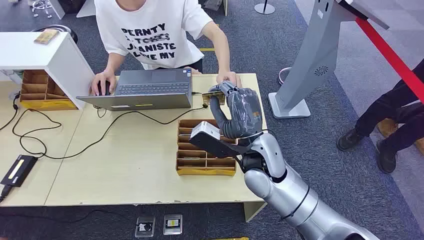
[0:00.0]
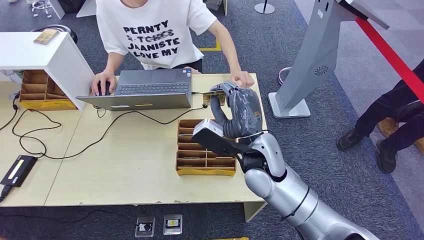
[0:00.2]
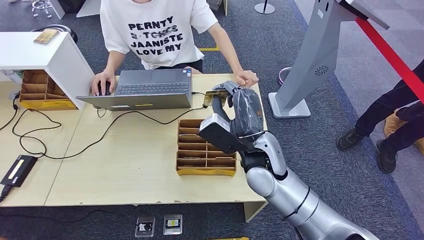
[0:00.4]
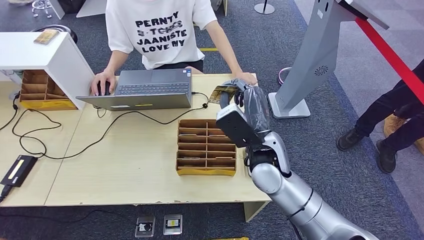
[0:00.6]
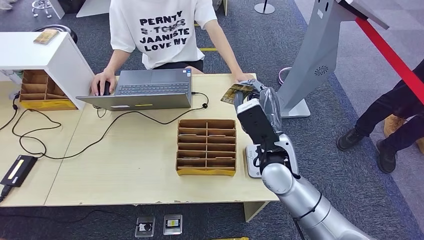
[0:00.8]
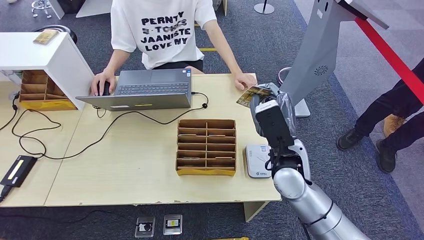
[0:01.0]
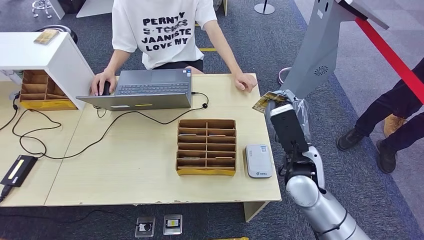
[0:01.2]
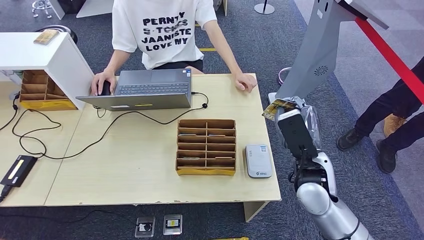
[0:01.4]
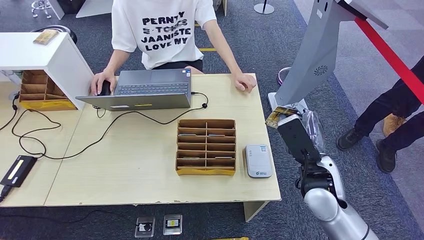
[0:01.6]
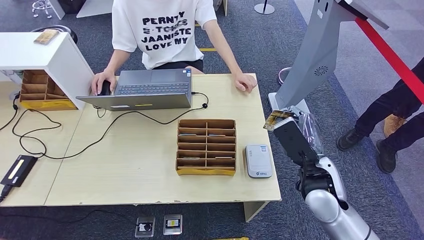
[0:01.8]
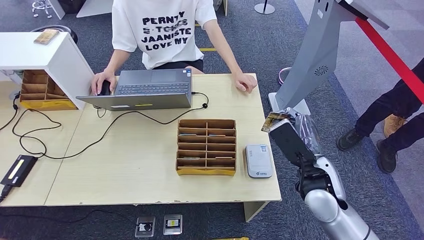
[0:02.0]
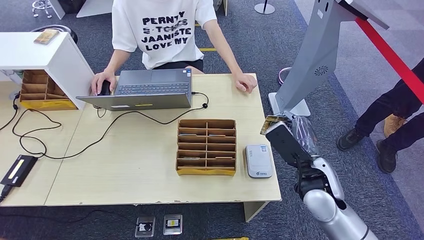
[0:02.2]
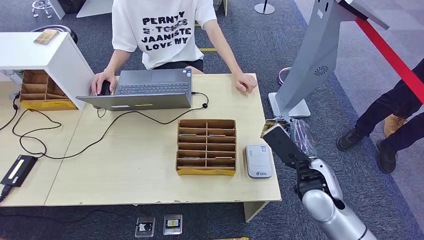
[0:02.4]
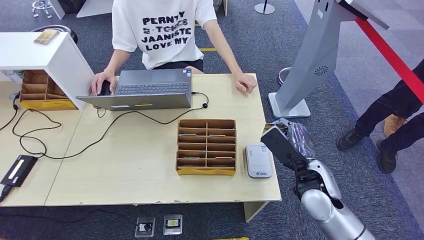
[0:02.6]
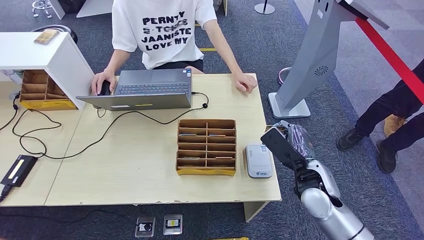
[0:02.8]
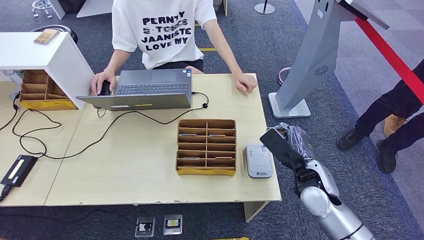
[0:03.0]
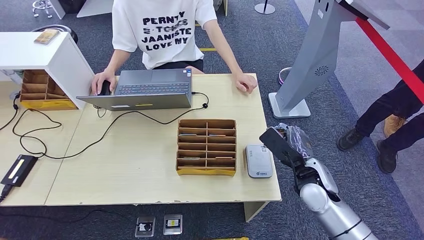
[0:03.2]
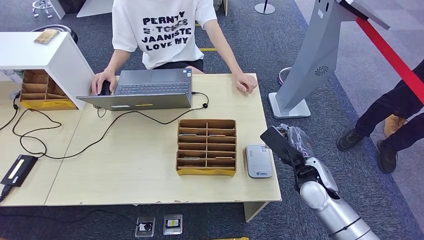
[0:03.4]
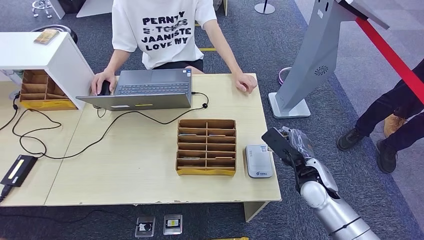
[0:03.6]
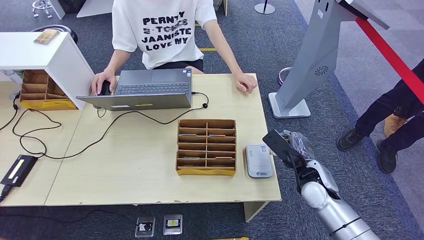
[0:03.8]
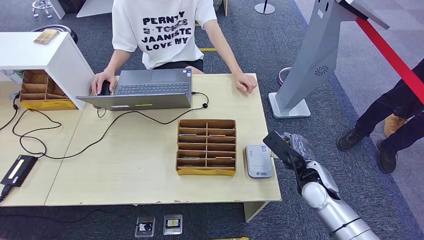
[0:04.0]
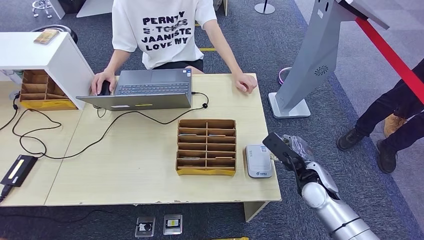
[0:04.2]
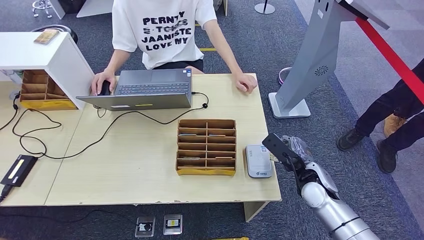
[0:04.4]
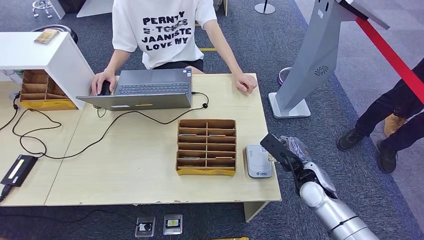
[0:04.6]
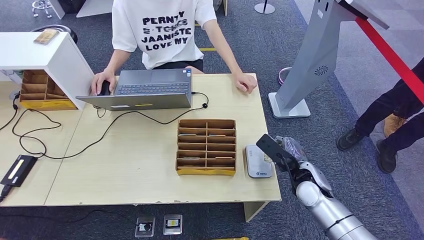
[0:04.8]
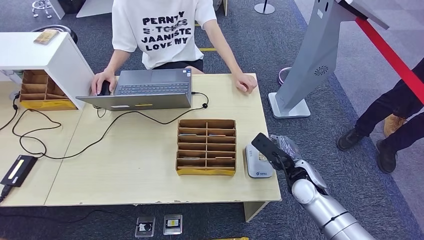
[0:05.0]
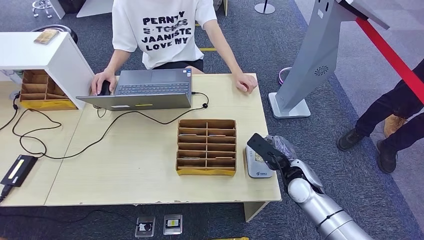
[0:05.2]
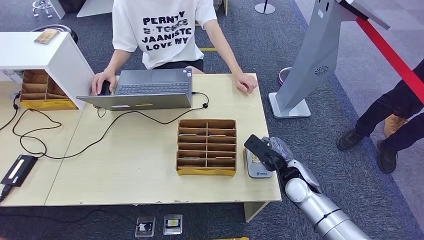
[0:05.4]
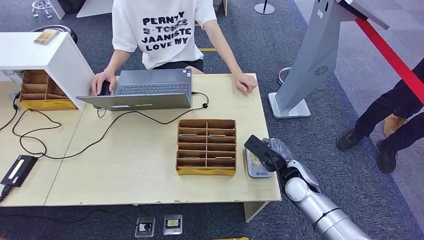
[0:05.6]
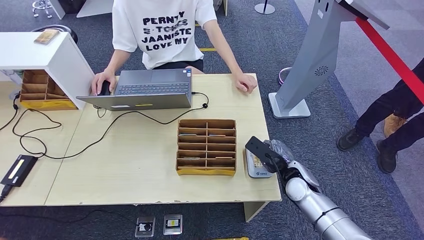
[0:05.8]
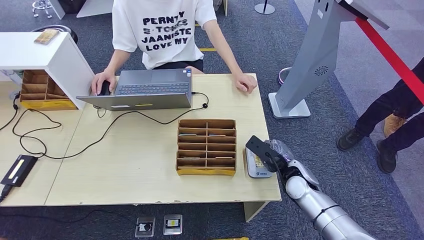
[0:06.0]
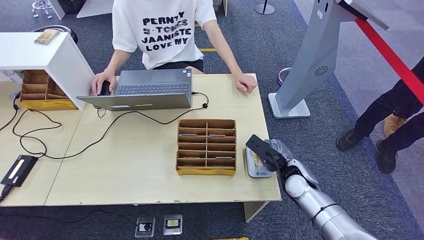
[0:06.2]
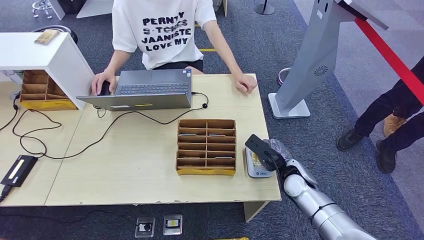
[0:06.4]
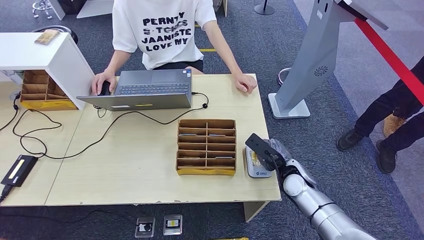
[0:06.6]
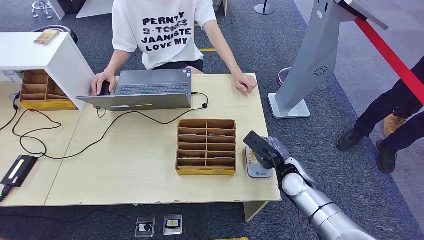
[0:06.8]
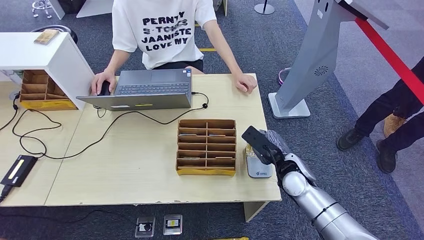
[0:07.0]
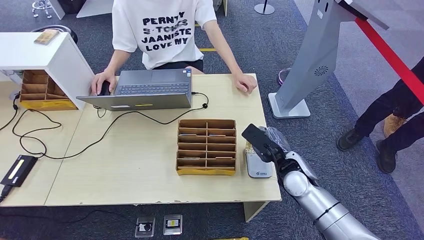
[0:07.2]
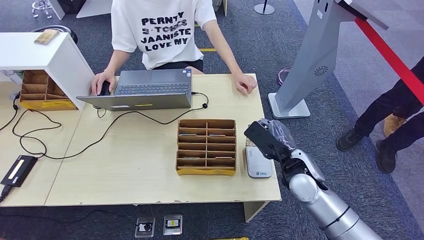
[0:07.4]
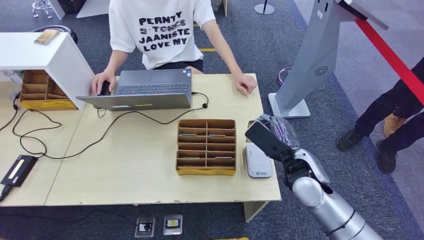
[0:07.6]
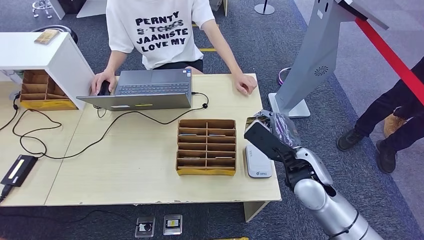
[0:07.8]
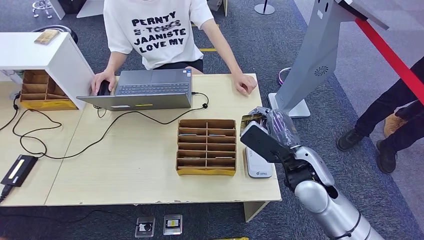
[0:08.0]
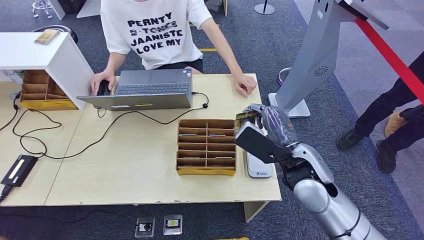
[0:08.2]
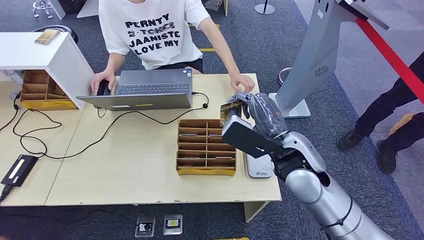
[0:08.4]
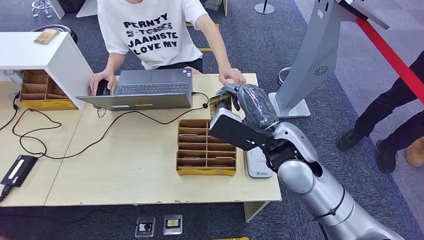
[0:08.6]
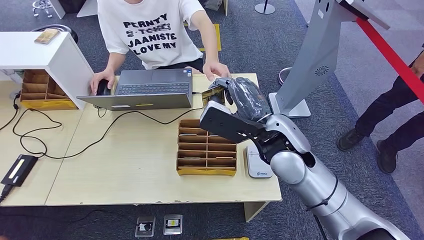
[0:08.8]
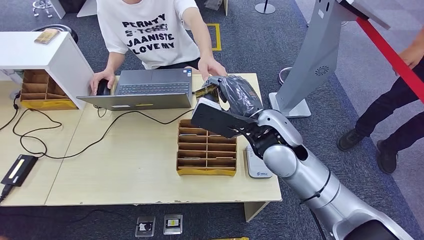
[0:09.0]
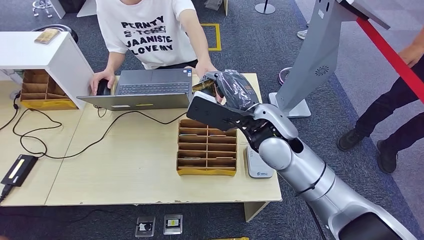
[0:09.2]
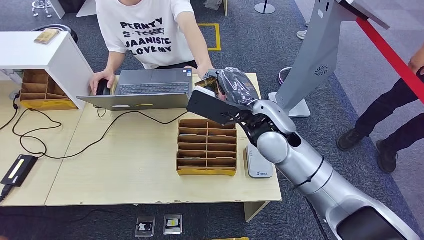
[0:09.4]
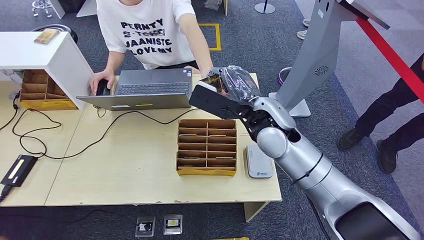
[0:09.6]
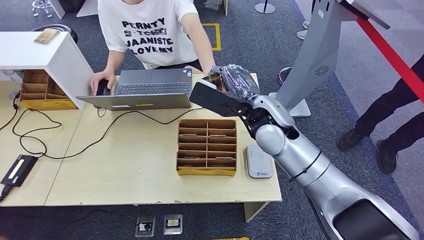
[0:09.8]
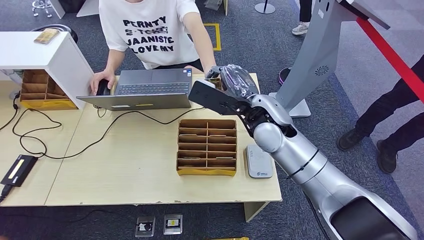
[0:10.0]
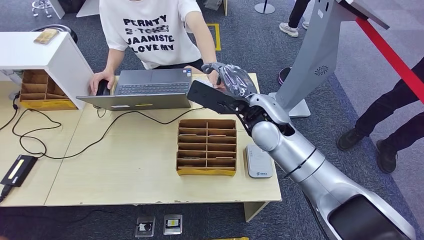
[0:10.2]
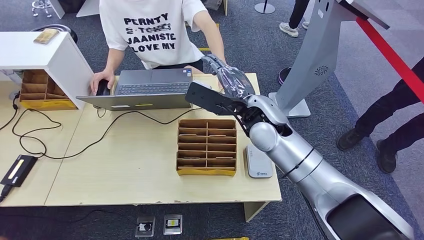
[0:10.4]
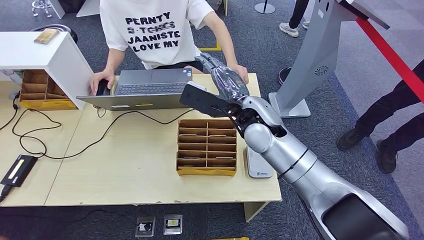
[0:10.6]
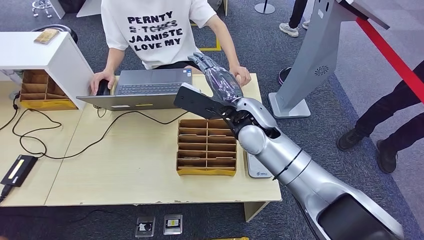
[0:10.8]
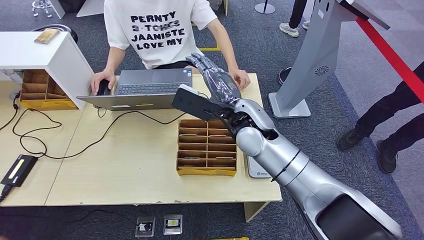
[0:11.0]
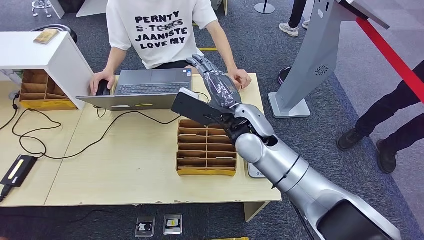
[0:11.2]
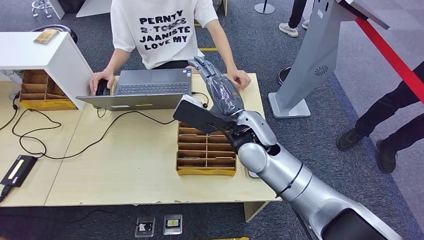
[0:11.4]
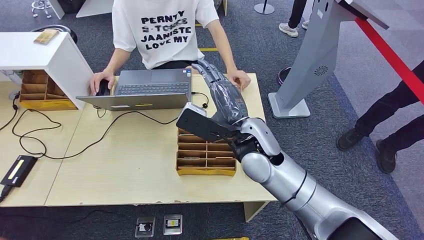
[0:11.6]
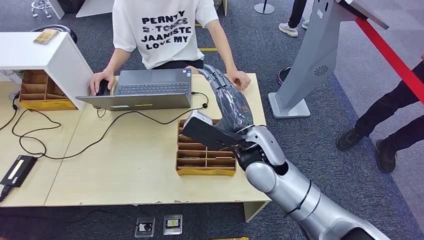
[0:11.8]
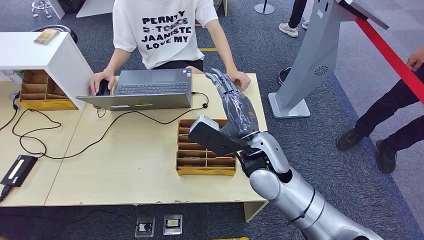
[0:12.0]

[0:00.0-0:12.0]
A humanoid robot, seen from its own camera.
Step, 0:00.0 to 0:02.4: Take the ID card from the person's hand.
Step, 0:02.8 to 0:09.0: Place the ID card on the card reader.
0:01.6 to 0:03.0: The right hand is displaced downward by roughly 5 cm.
0:03.0 to 0:04.4: The right hand changes place by approximately 5 cm.
0:04.4 to 0:06.0: The hands stay close to where they were, moving slightly.
0:06.0 to 0:07.6: The right hand travels upward by about 10 cm.
0:07.6 to 0:09.0: The right hand goes approximately 15 cm upward and to the left.
0:09.0 to 0:10.4: The right hand travels forward by roughly 5 cm.
0:10.4 to 0:12.0: The right hand is displaced backward by roughly 10 cm.

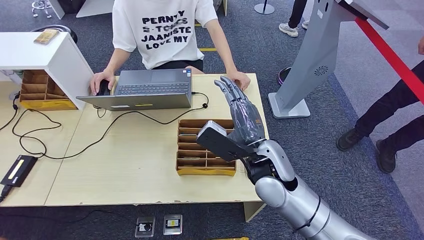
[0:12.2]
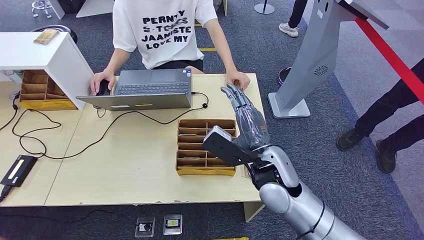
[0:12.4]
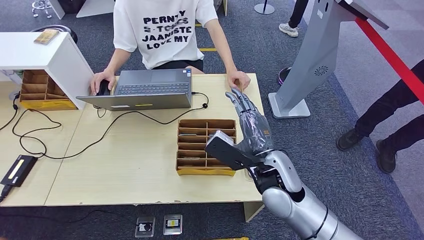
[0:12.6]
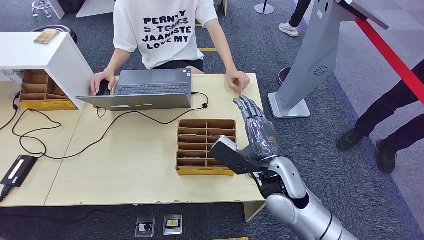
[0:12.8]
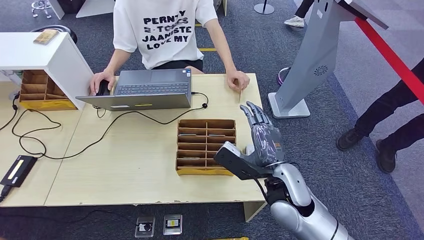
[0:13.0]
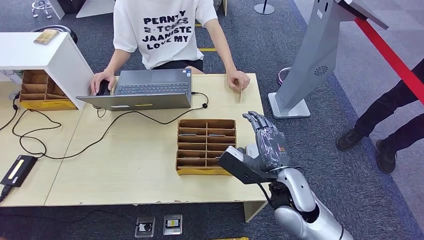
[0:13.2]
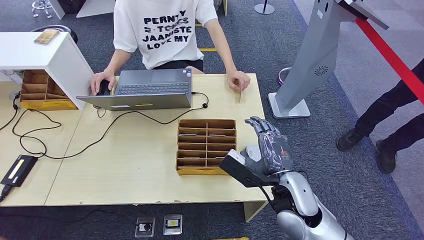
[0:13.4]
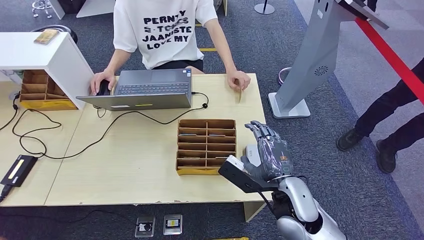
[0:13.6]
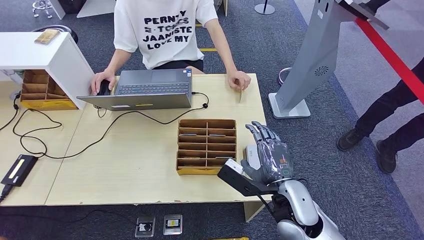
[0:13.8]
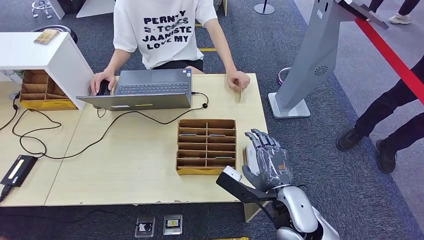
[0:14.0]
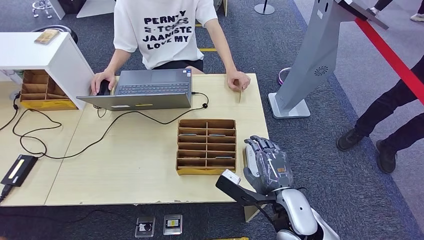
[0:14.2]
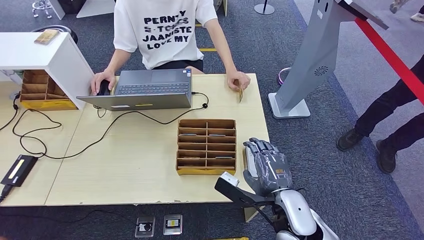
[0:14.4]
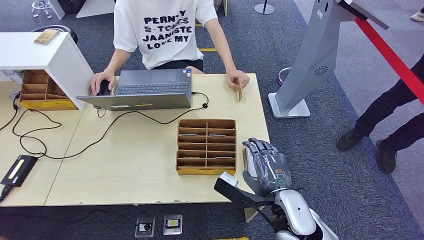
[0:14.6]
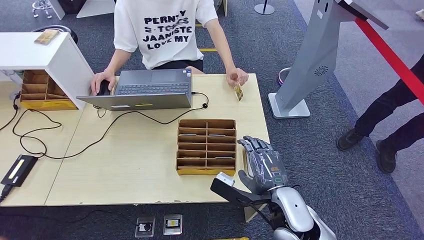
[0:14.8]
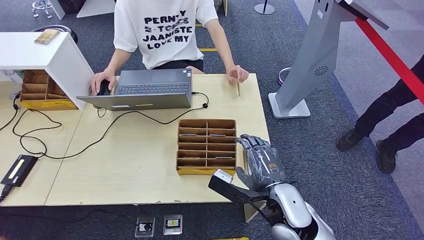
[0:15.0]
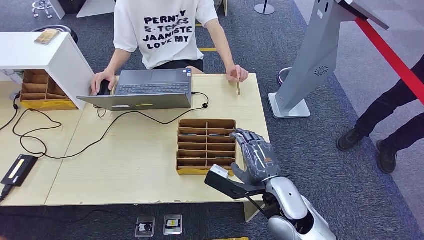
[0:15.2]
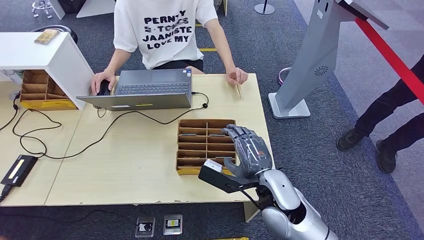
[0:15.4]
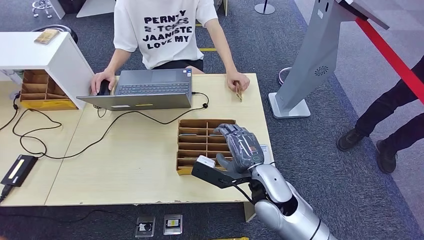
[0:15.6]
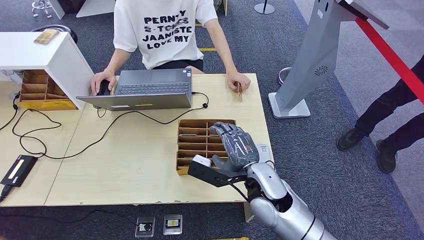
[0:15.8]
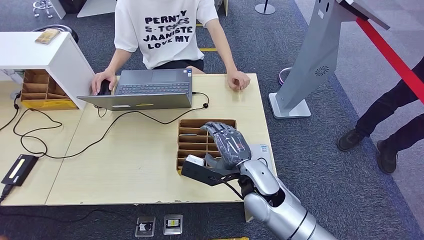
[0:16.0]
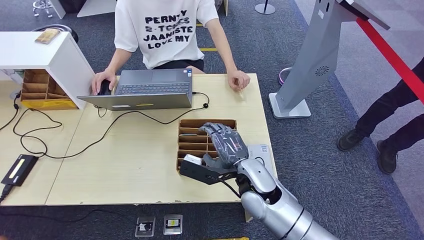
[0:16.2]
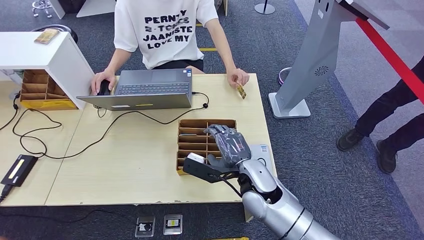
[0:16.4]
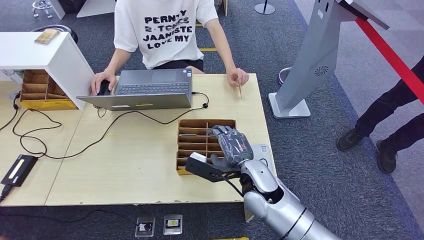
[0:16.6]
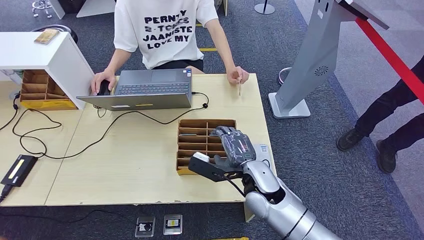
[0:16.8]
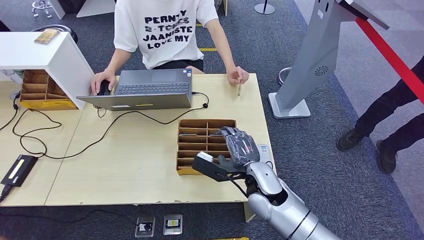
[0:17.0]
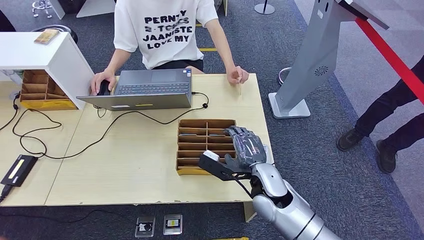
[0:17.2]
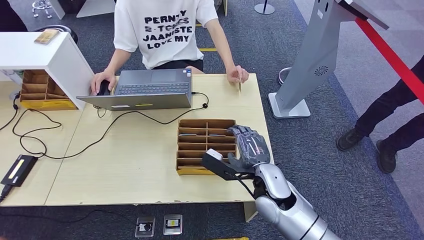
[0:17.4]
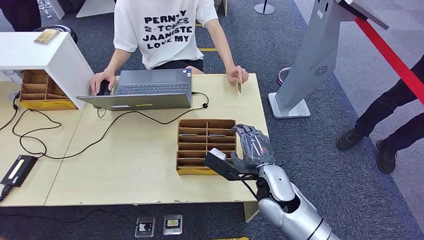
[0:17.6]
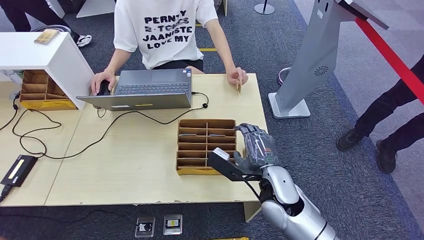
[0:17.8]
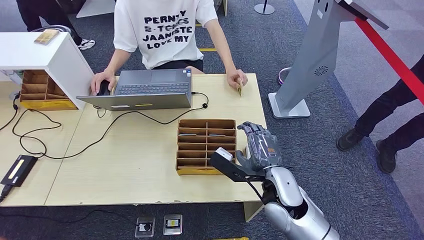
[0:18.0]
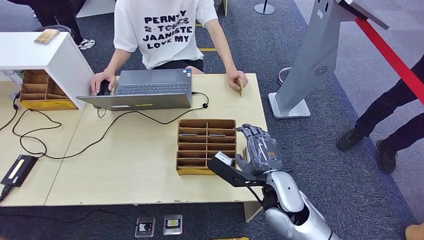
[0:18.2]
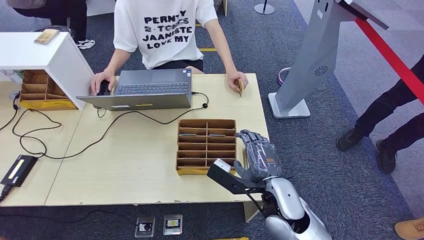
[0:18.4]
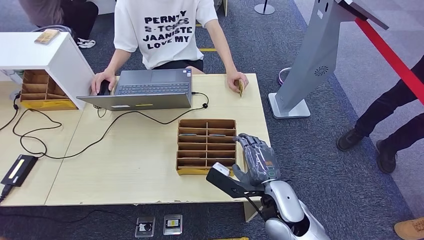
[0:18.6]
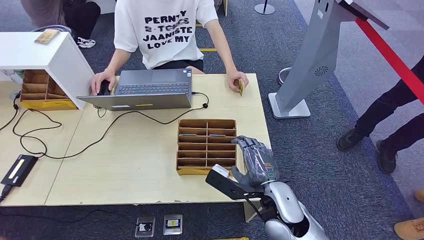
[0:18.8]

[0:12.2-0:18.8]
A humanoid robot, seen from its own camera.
0:12.2 to 0:13.8: The right hand is displaced backward, downward and to the right by some 10 cm.
0:13.8 to 0:15.4: The hands stay close to where they were, moving slightly.
0:15.4 to 0:17.2: The hands move only a little.
0:17.2 to 0:18.8: The right hand travels backward by approximately 5 cm.
